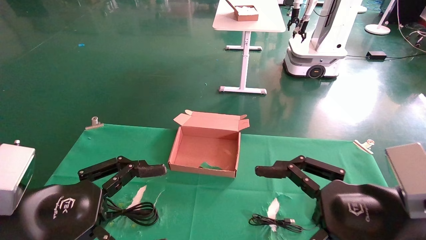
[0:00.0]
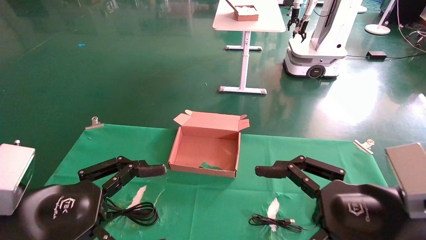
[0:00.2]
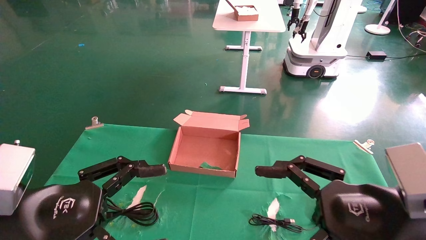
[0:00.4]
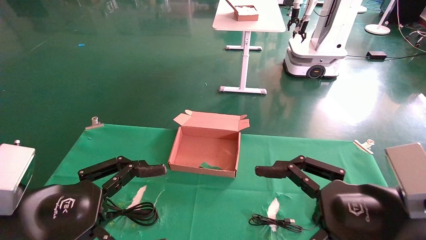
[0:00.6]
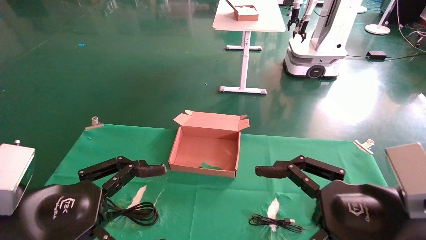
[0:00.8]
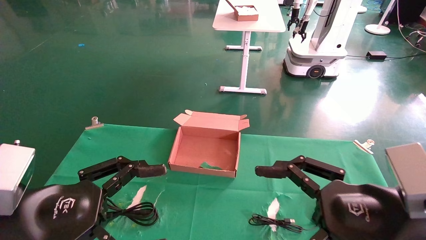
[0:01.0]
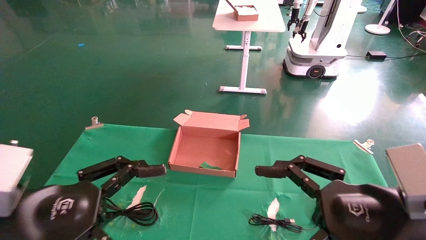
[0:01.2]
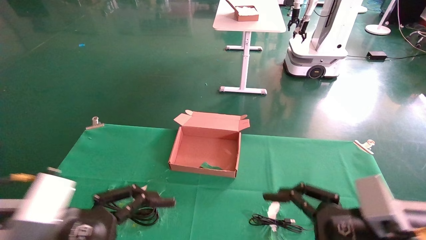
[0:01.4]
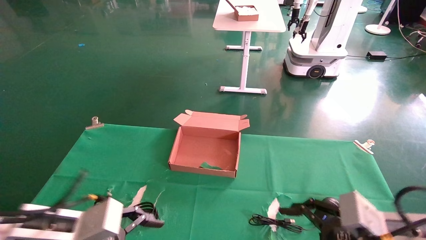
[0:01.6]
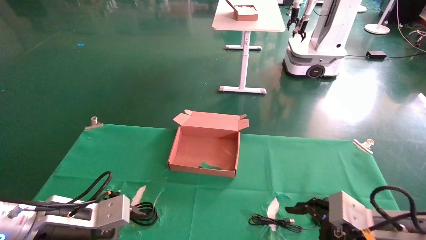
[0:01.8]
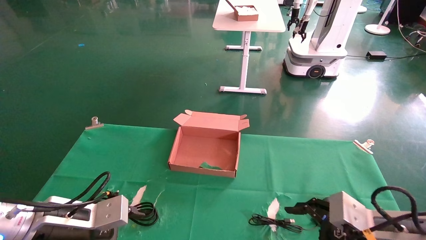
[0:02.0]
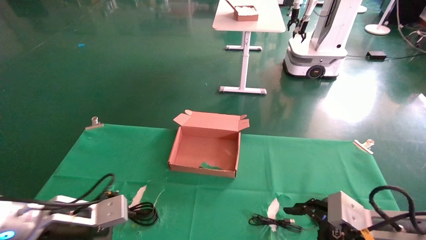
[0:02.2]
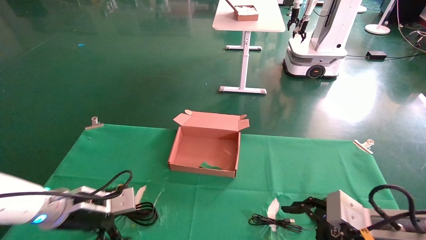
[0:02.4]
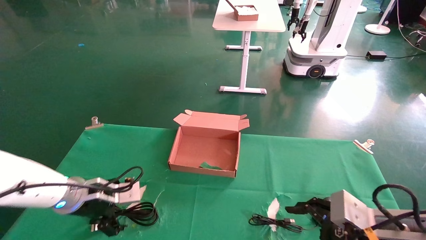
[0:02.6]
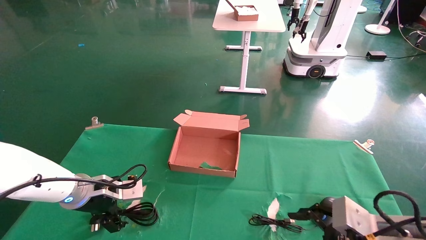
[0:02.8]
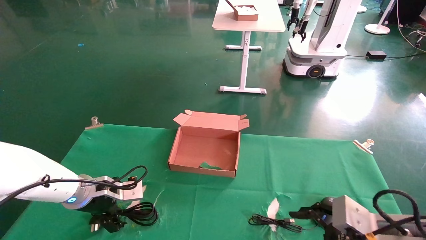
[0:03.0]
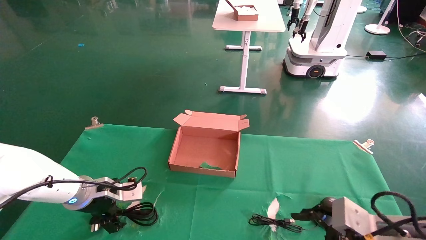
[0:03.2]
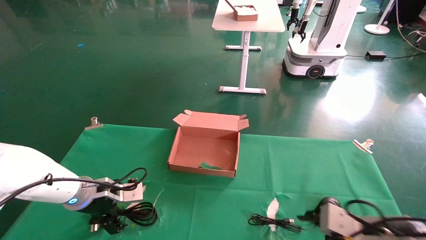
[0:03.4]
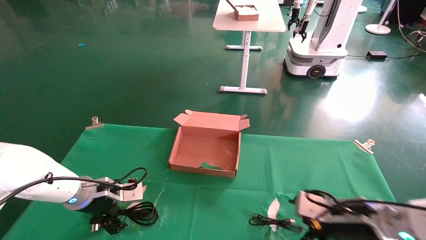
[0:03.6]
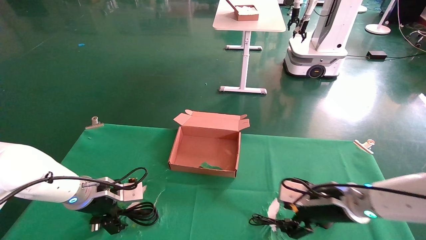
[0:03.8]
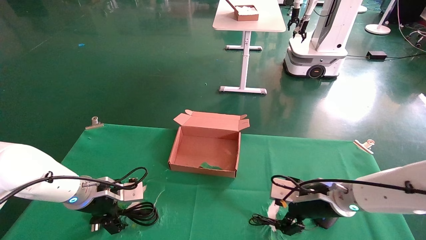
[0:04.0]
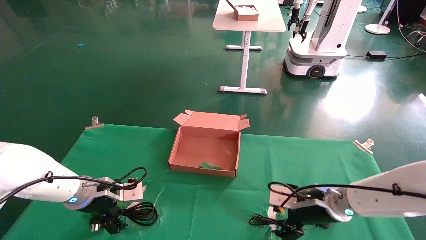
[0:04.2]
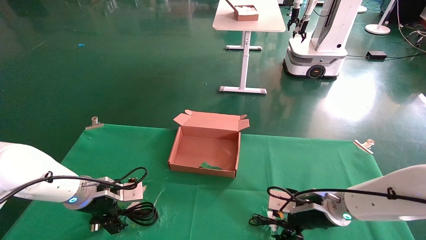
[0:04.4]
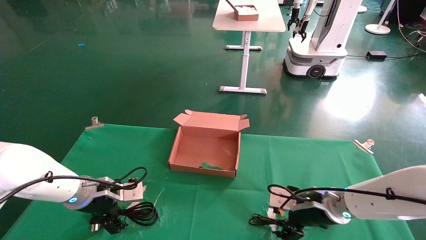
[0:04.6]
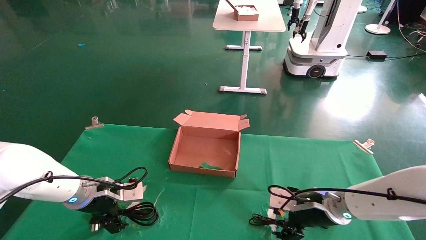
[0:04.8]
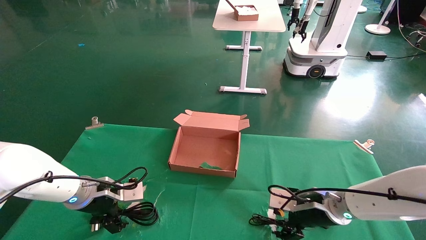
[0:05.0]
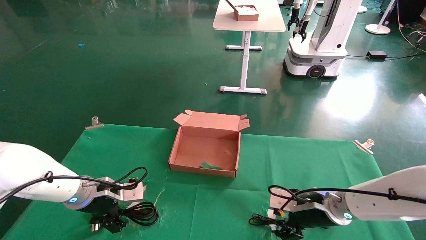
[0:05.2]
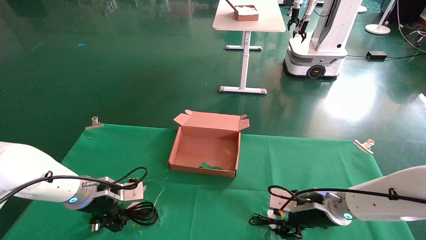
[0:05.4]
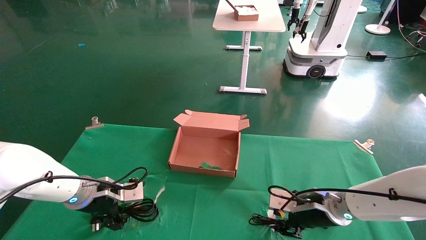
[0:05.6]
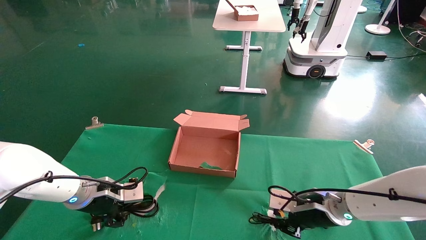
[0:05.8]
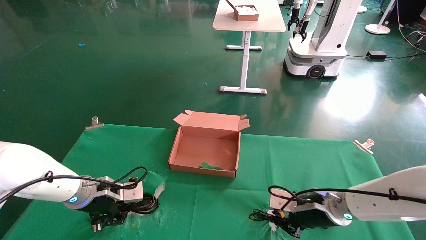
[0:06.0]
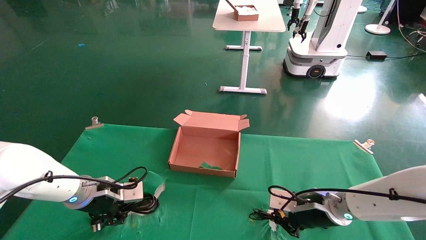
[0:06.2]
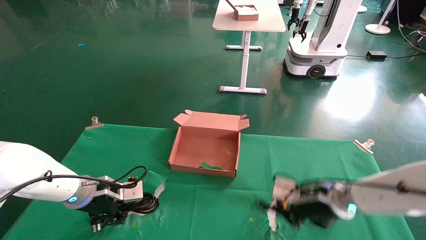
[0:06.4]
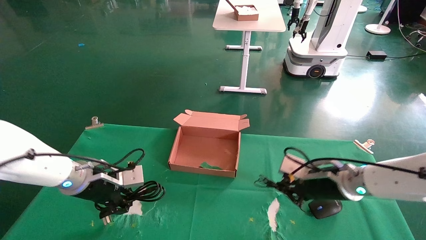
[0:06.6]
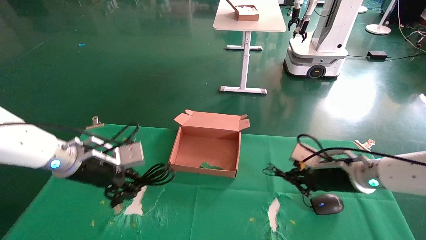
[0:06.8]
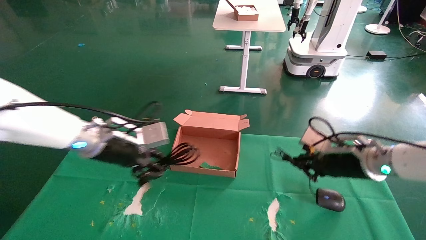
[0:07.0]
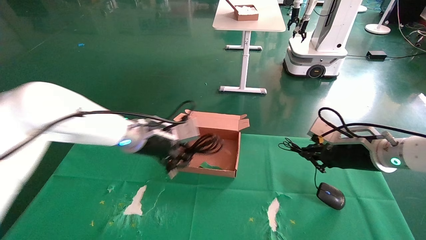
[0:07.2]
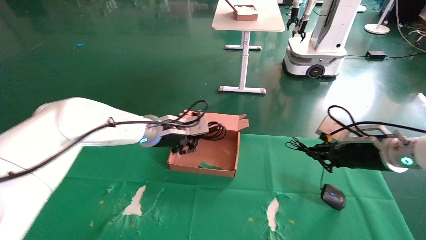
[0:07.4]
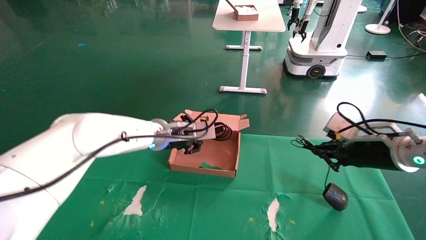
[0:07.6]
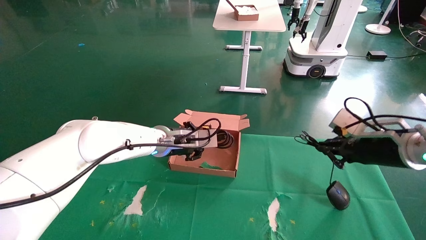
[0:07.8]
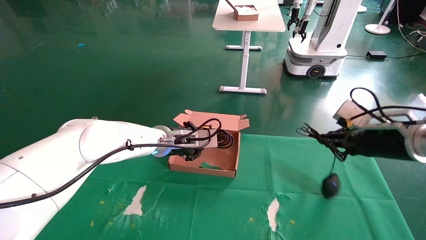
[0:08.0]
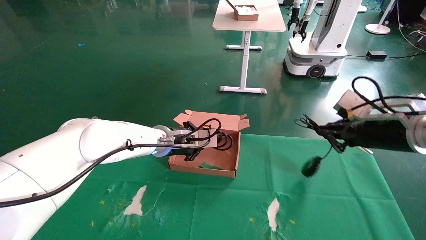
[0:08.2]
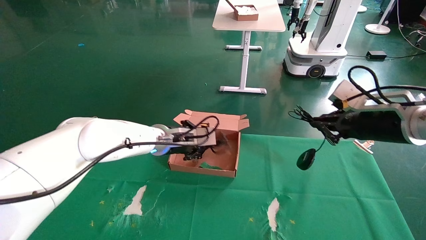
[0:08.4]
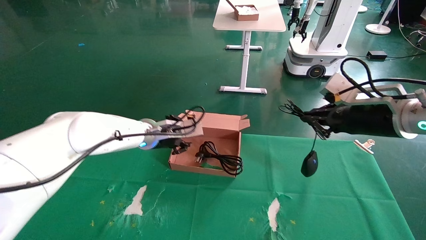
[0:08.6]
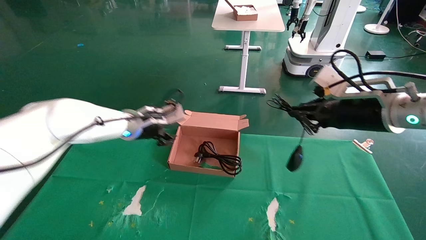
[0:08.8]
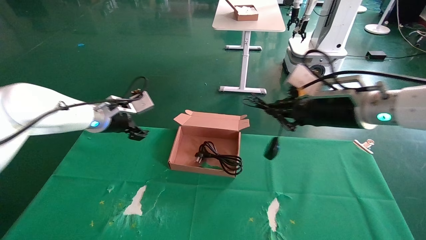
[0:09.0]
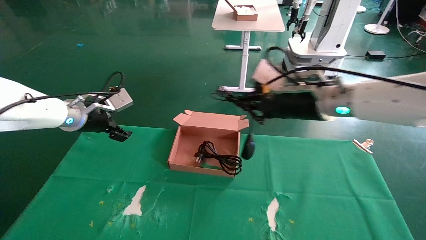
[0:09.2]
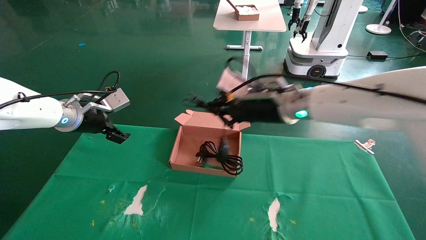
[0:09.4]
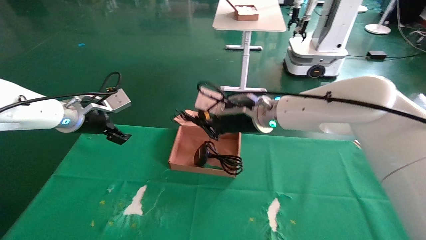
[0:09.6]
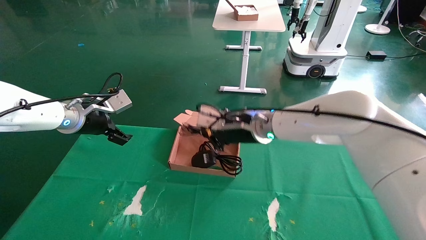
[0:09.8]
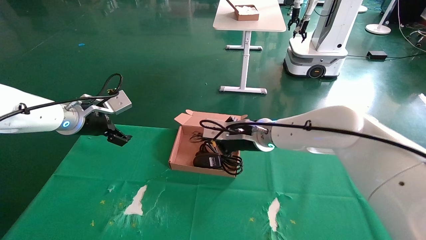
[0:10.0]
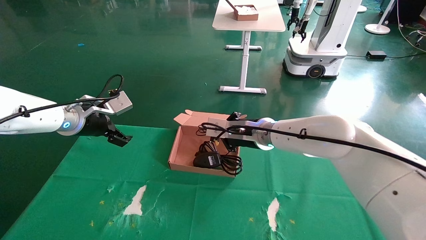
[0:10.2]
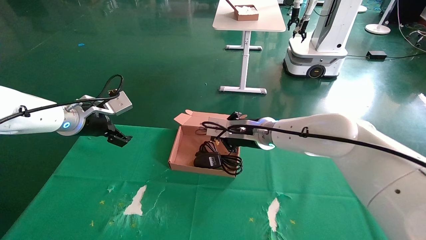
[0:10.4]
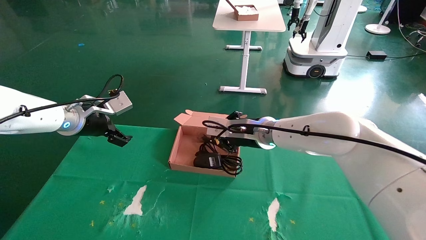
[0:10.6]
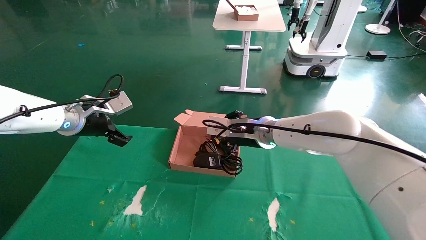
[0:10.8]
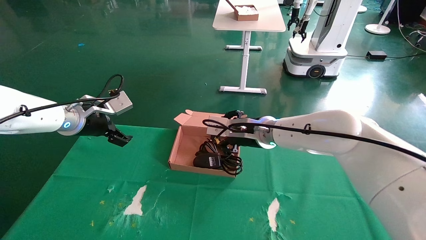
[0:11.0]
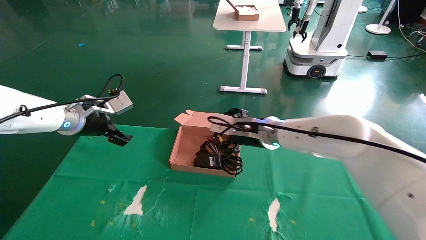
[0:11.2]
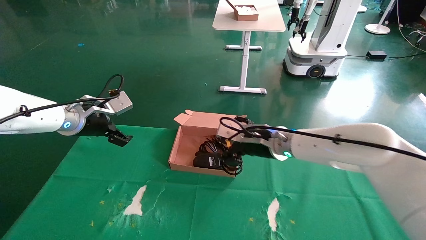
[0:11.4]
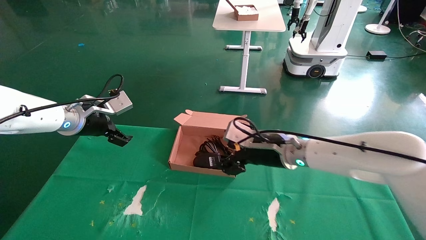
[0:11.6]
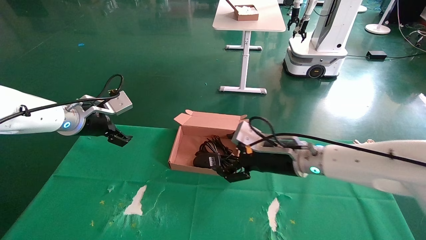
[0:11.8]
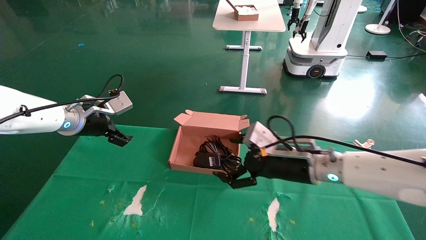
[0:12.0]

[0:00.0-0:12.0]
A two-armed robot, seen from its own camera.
Step, 0:01.6 to 0:06.4: Grab and lift both the mouse and power cord from the accessory packaging area at the same time.
Step, 0:06.6 to 0:10.6: Place the mouse and power cord into the box.
0:00.0 to 0:01.6: The right gripper moves downward, some 5 cm, while the left gripper moves downward and forward, roughly 10 cm.
0:01.6 to 0:03.0: The left gripper is displaced forward by about 15 cm.
0:03.0 to 0:04.4: The right gripper travels forward and to the left by about 15 cm.
0:04.4 to 0:06.0: The left gripper closes up. Meanwhile the right gripper closes.
0:06.0 to 0:07.6: The left gripper is displaced to the right and upward by about 20 cm, while the right gripper is displaced upward and to the right by roughly 15 cm.
0:07.6 to 0:09.0: The right gripper shifts about 15 cm to the left and upward. The left gripper heads to the left, covering some 15 cm, and opens up.
0:09.0 to 0:10.4: The left gripper moves roughly 5 cm, and opens. The right gripper heads to the left, forward and downward, covering some 20 cm.
0:10.4 to 0:12.0: The right gripper goes roughly 15 cm backward and to the right, and opens up.

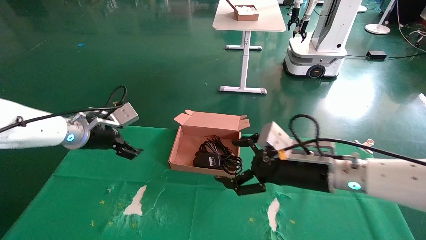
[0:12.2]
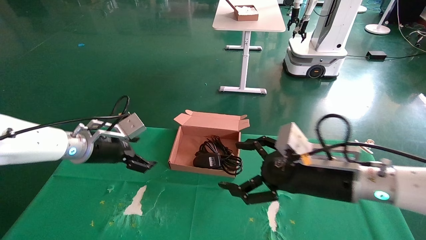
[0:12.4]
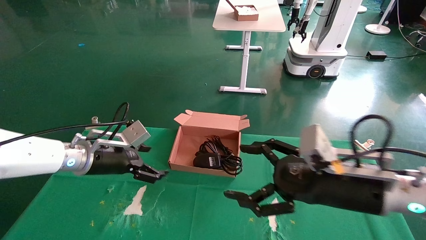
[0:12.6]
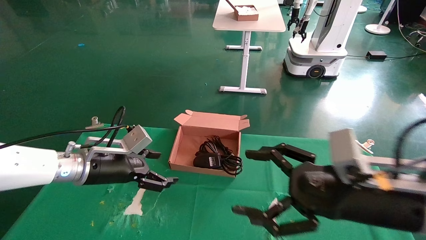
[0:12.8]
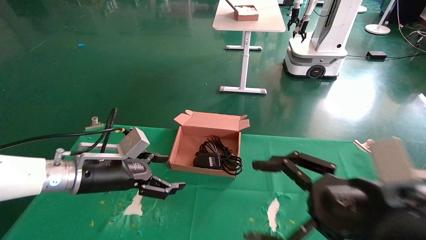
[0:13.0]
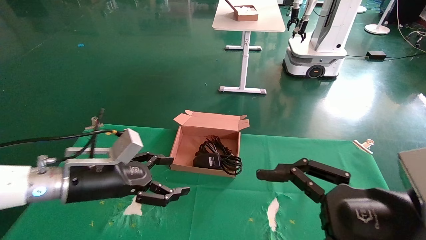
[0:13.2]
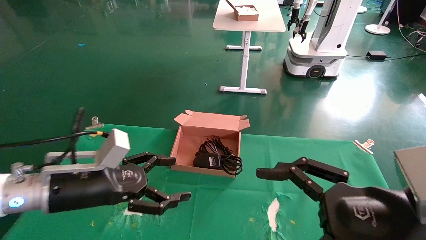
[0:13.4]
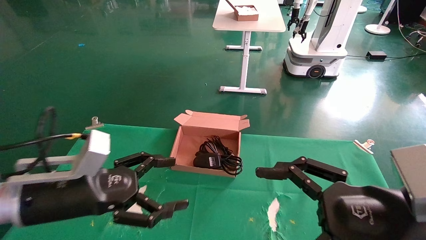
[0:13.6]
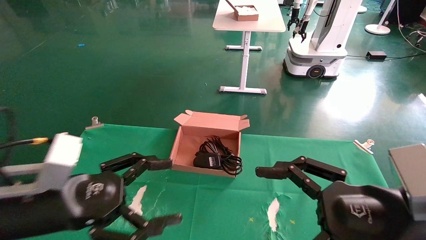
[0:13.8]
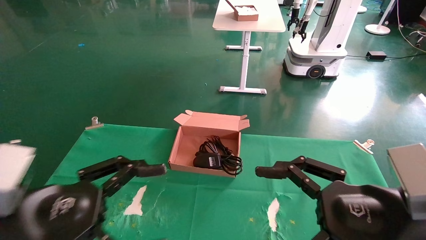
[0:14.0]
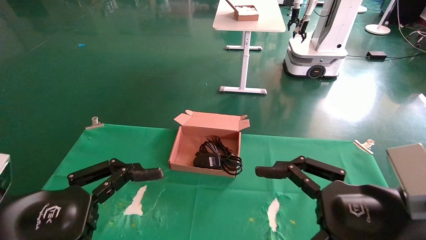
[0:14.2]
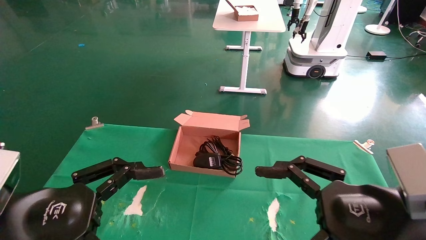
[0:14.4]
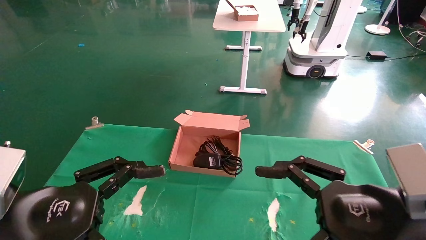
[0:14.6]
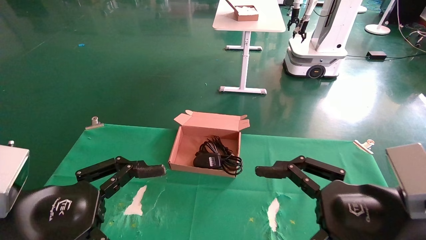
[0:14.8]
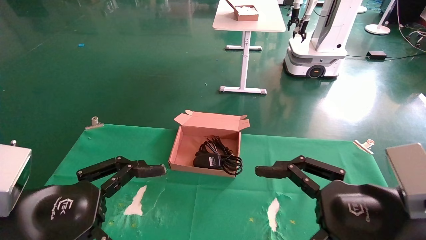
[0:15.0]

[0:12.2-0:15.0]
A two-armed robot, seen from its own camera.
0:12.2 to 0:13.6: The grippers both shift backward by approximately 15 cm.
0:13.6 to 0:15.0: The left gripper goes approximately 10 cm backward.
